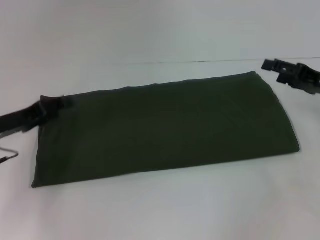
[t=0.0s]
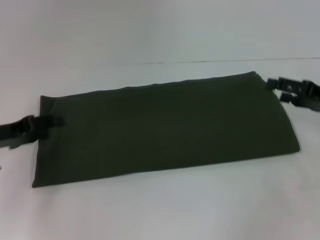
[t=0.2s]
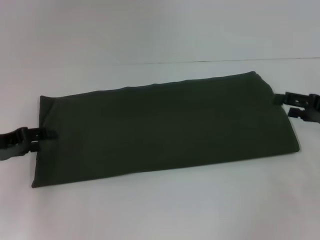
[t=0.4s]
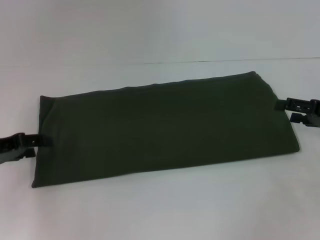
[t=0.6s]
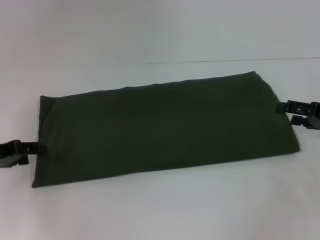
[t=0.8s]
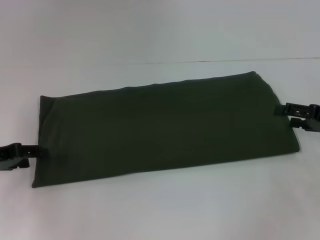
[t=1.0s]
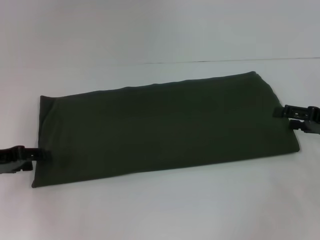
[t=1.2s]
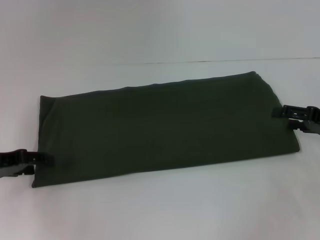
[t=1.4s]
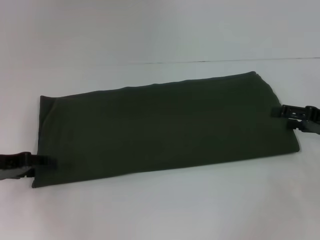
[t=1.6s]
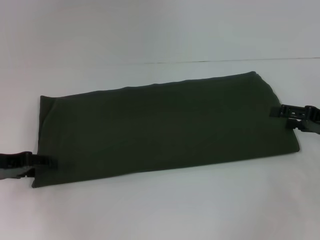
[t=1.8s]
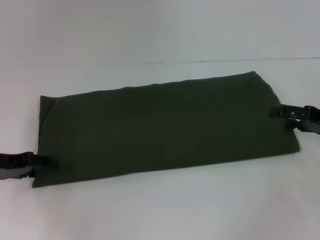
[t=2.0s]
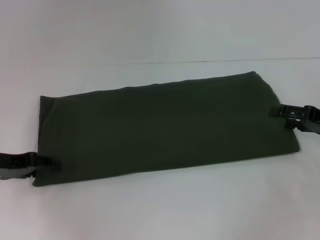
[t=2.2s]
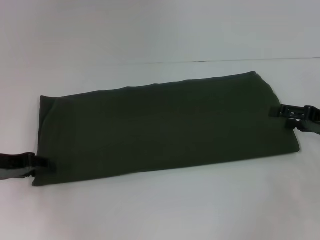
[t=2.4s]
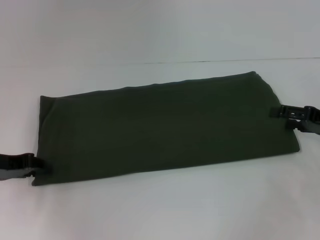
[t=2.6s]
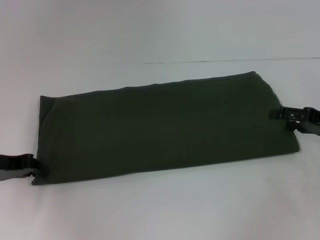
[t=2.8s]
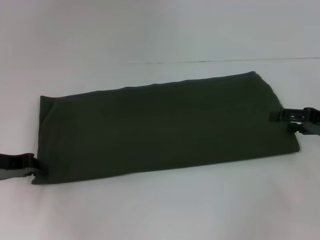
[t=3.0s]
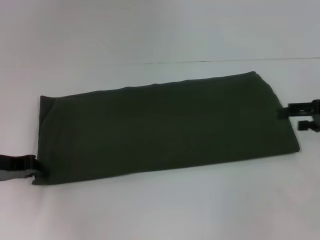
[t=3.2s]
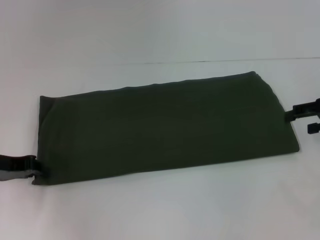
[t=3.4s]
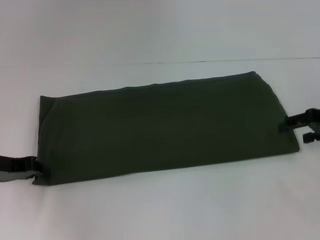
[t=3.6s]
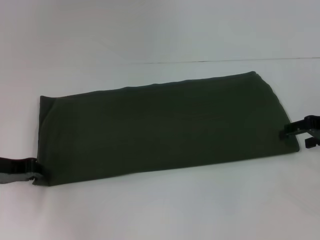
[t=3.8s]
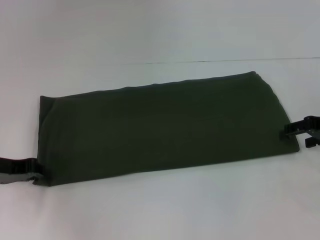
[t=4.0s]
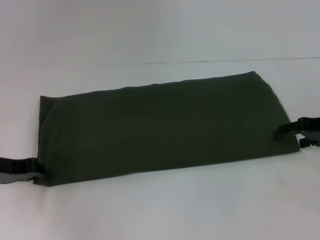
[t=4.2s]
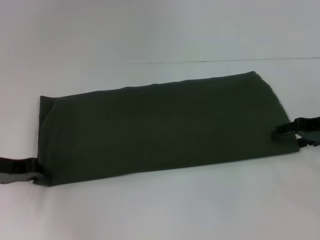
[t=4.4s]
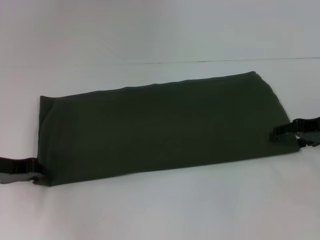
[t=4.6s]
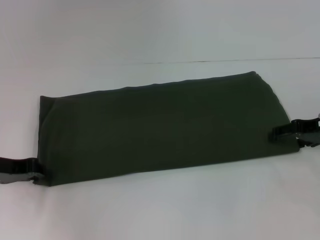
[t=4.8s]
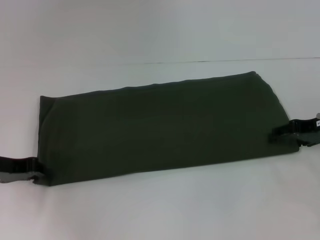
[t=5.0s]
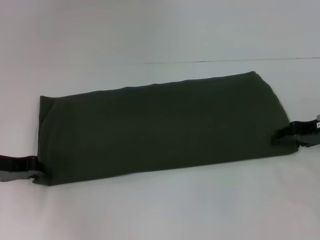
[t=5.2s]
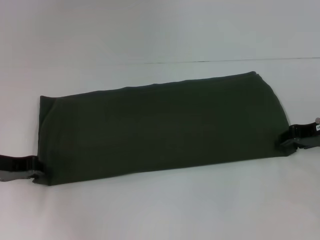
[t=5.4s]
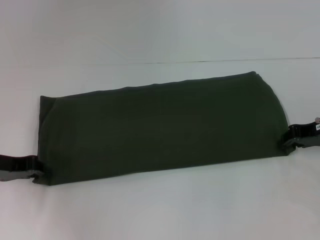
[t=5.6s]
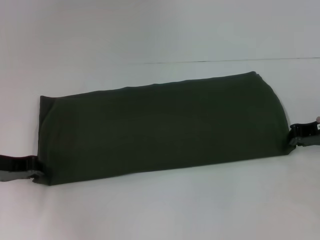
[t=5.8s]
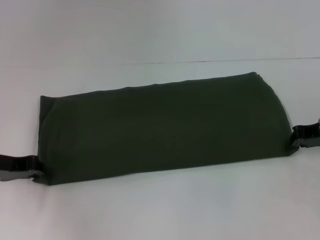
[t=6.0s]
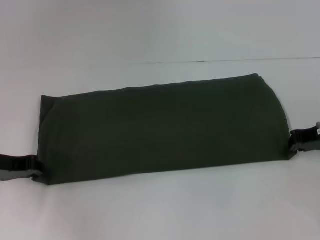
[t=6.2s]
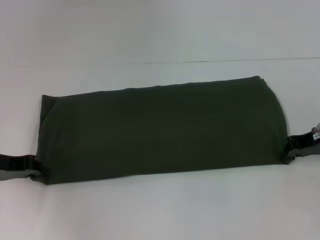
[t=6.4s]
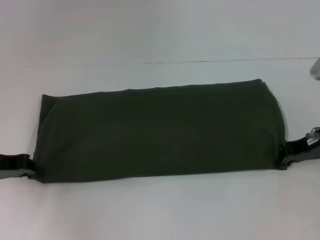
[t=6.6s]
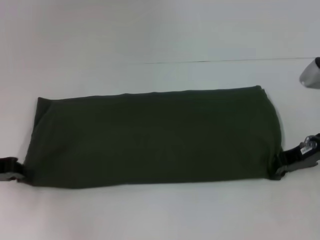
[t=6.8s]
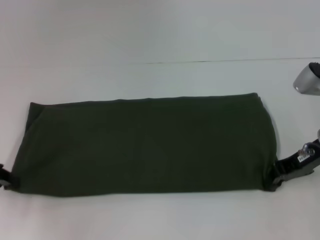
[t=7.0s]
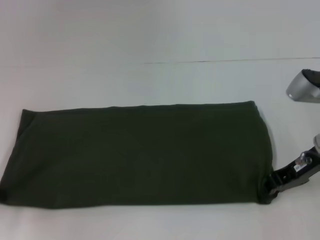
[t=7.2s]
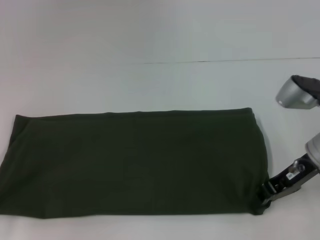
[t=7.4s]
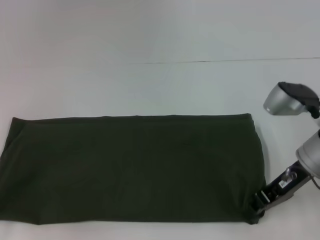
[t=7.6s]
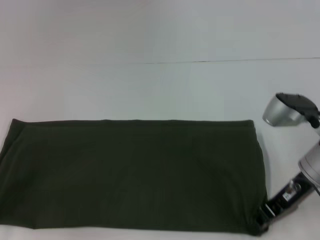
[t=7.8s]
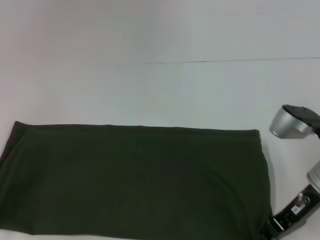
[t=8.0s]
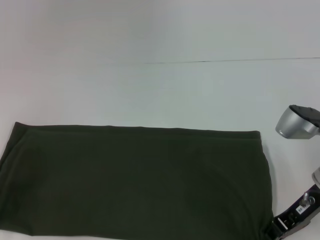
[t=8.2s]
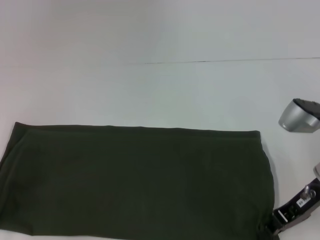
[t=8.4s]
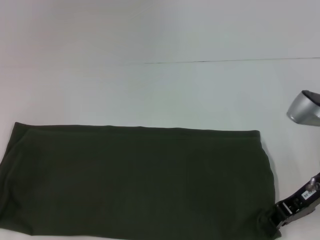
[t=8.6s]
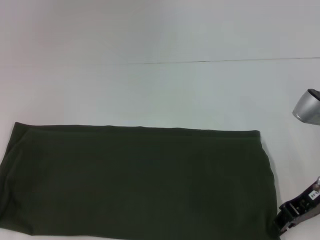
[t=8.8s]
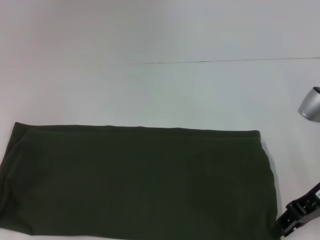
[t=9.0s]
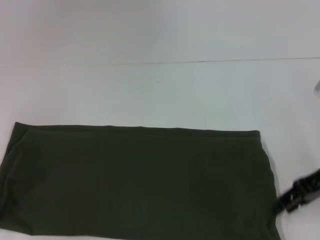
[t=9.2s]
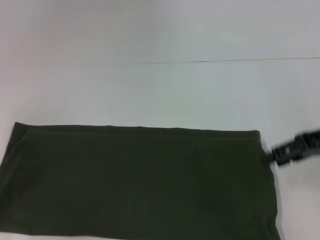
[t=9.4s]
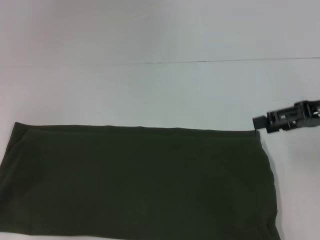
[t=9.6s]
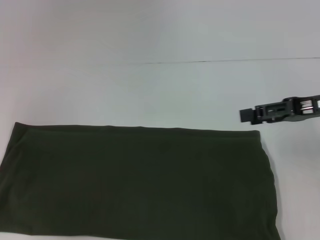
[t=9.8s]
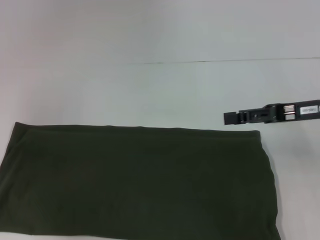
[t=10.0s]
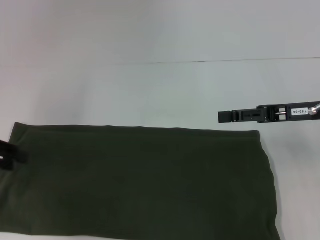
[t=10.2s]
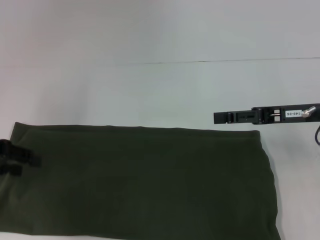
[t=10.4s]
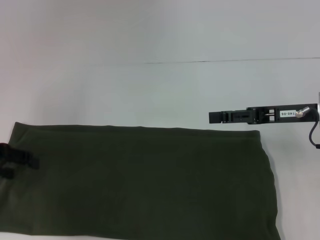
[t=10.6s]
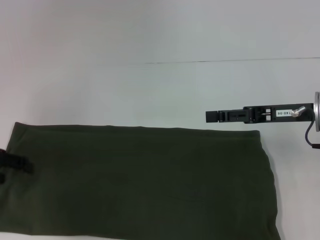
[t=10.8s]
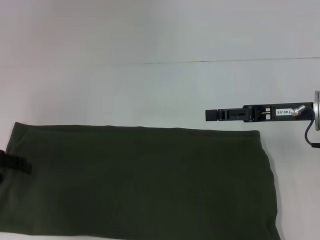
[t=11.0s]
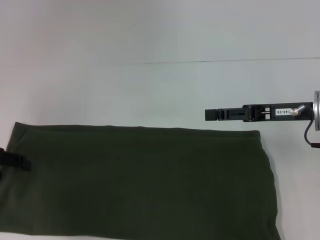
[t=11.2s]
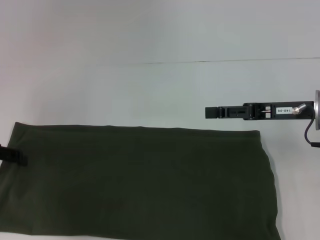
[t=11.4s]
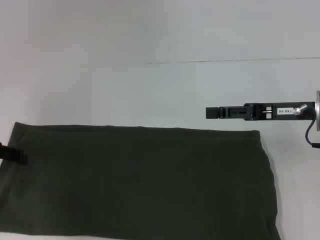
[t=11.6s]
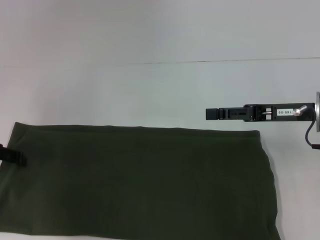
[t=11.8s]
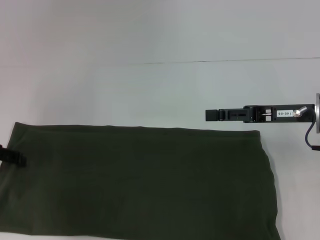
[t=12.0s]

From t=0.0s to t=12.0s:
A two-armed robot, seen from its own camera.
From t=4.4s to t=6.0s: The right gripper closes.
From t=6.0s to t=7.6s: The left gripper heads to the left and backward, covering roughly 10 cm. The right gripper heads to the left, covering some 10 cm.
From t=7.6s to t=9.0s: The grippers stay close to where they were, moving slightly.
From t=9.0s to t=10.4s: The right gripper opens; the left gripper moves forward, about 5 cm, and opens.

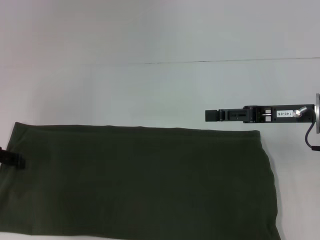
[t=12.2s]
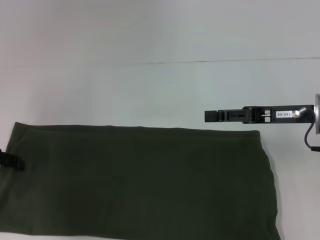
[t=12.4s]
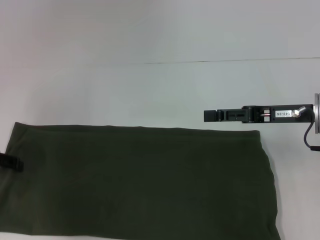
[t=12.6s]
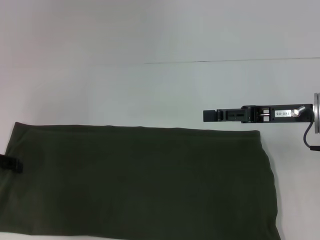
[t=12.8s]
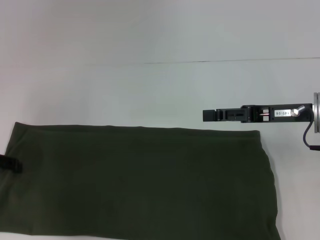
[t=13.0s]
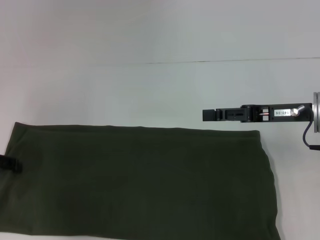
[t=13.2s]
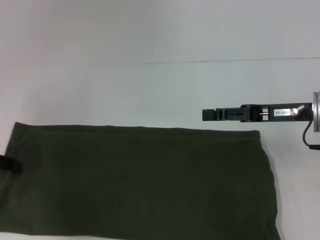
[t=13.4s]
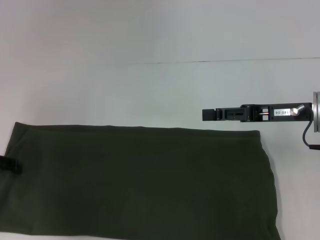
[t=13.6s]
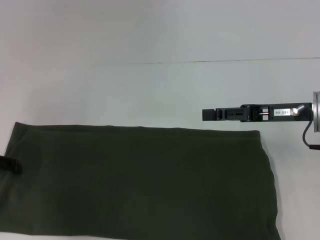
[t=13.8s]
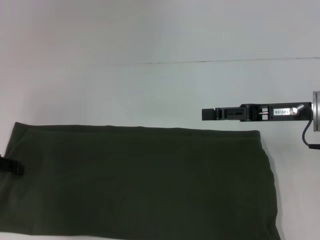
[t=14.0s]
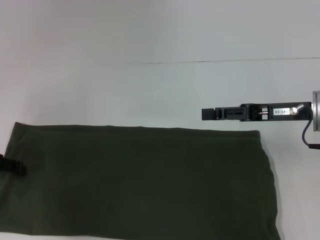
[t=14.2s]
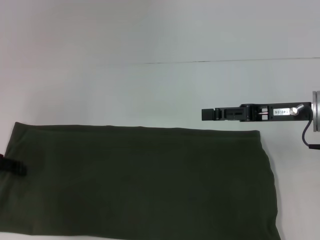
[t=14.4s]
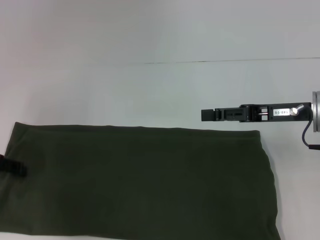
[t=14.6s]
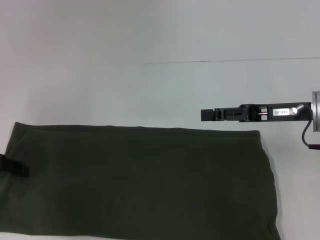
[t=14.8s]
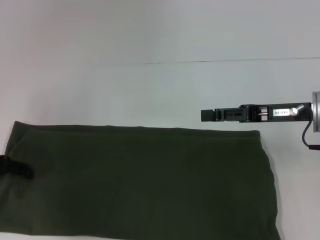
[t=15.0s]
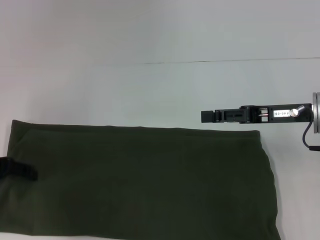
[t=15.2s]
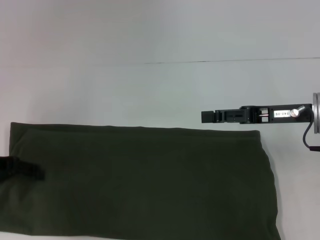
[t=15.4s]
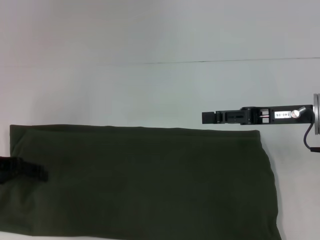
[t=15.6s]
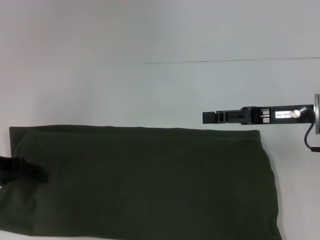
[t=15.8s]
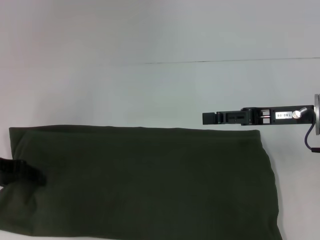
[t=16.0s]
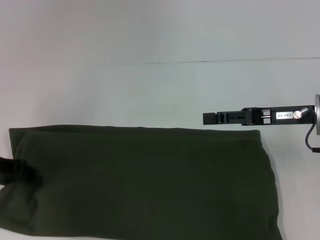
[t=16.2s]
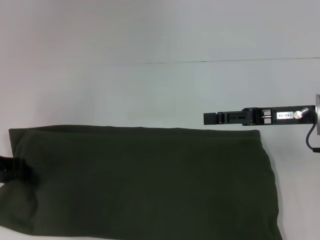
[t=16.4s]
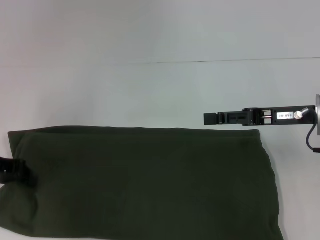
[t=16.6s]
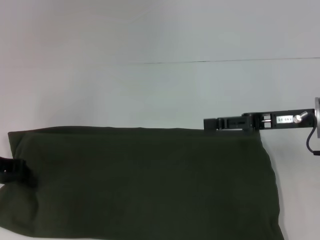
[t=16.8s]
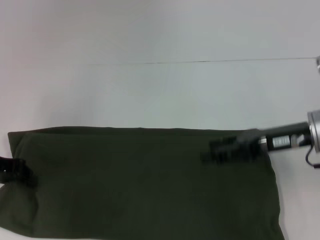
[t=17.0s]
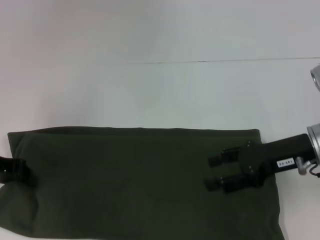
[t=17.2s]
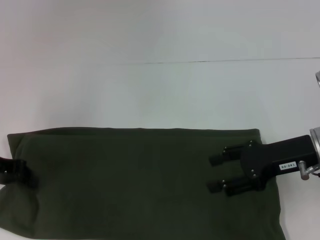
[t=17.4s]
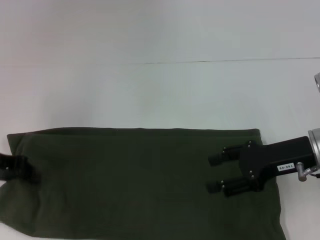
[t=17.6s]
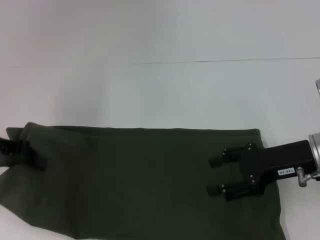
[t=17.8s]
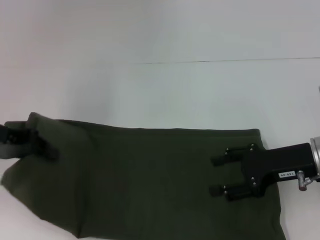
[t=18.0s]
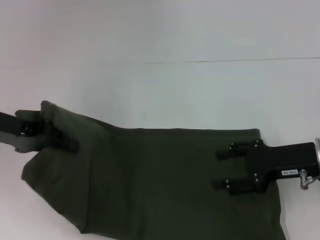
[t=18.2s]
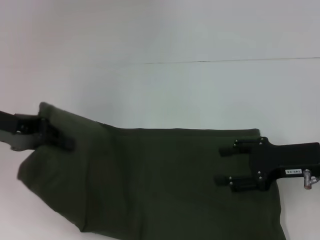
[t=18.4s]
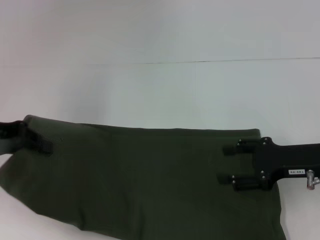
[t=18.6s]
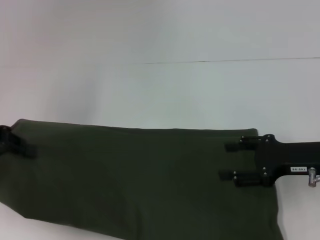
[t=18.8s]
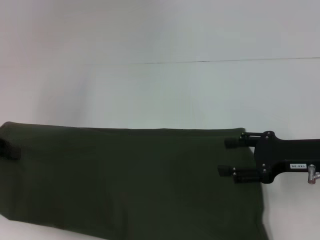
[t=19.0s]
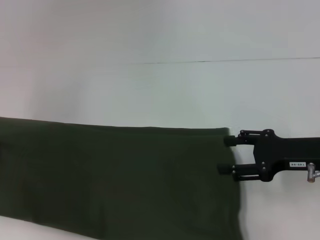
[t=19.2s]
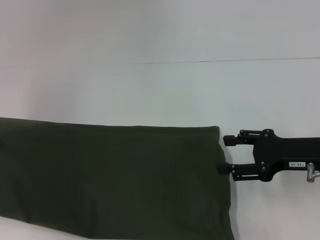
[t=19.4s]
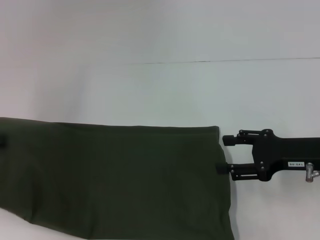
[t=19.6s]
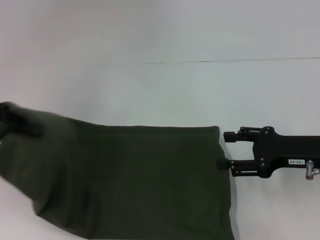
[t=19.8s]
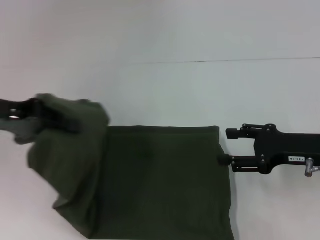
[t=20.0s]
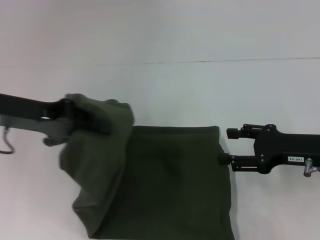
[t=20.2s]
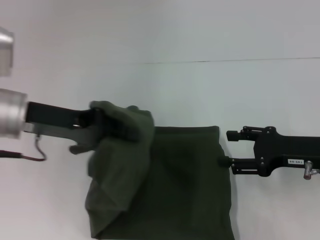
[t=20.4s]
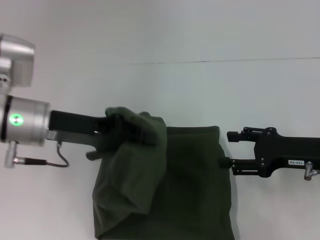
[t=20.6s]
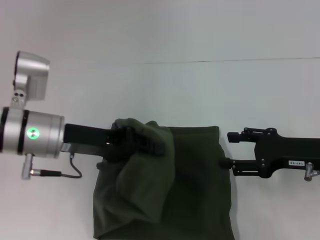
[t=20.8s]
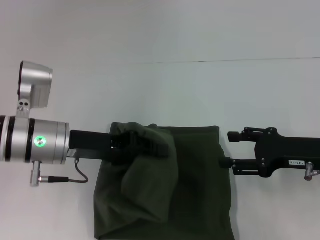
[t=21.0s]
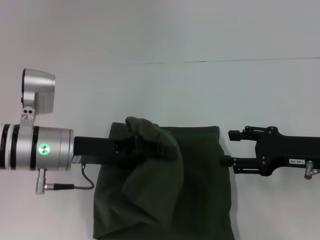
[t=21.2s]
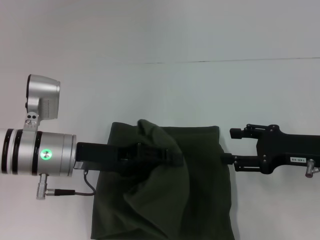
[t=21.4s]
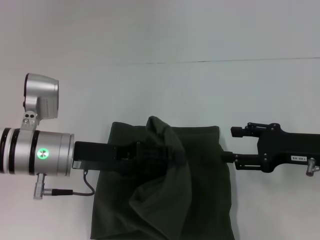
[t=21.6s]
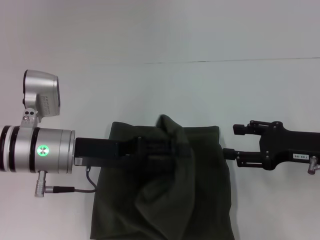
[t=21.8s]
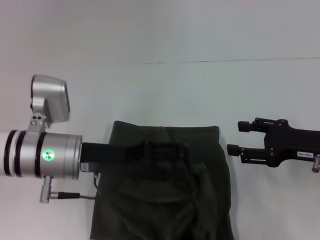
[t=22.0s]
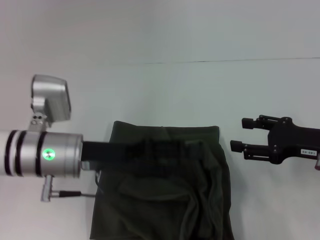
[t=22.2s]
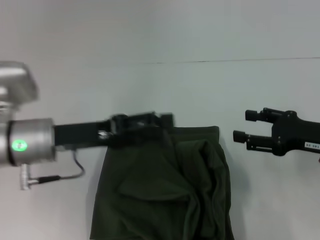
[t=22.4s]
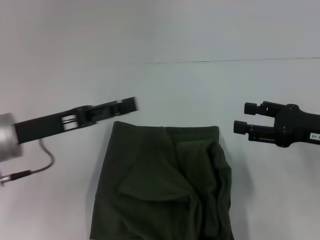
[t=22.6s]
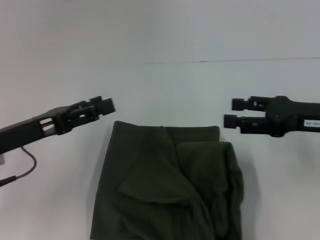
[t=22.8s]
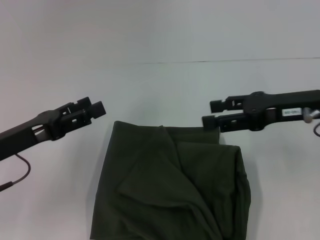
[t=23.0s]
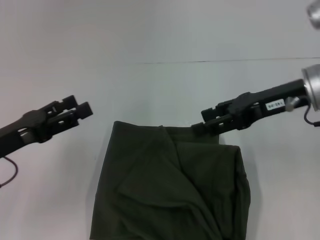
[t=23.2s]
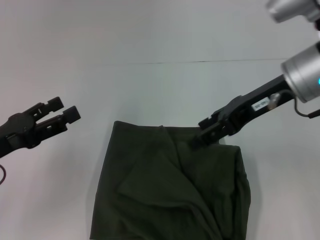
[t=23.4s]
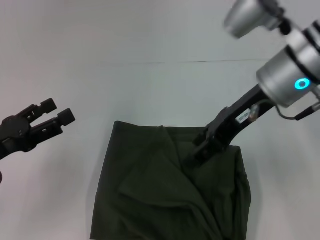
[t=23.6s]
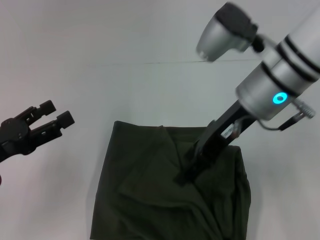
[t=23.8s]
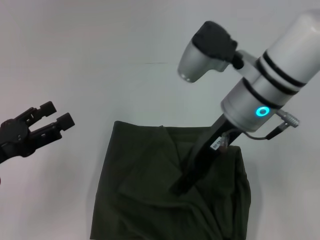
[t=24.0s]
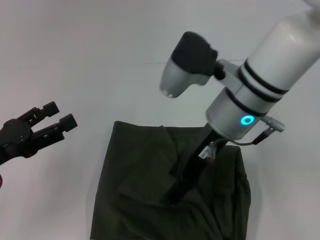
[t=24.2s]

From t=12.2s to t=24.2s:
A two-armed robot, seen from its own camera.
Step, from t=12.2s to t=22.2s: Fold the clothes with your left hand.
From t=12.2s to t=13.8s: Both grippers stay put.
From t=13.8s to t=15.2s: There are only small adjustments of the grippers.
From t=15.2s to t=16.6s: The left gripper closes its fingers.
From t=16.6s to t=18.2s: The right gripper ends up roughly 5 cm from where it was; the left gripper is displaced upward by some 5 cm.
From t=18.2s to t=19.8s: The left gripper moves to the left, about 5 cm.
From t=19.8s to t=21.2s: The left gripper heads to the right and downward, covering some 20 cm.
From t=21.2s to t=22.6s: The left gripper travels to the left by roughly 5 cm, and opens.
From t=22.6s to t=24.2s: The left gripper goes roughly 10 cm to the left and backward. Meanwhile the right gripper shifts some 20 cm to the left.
